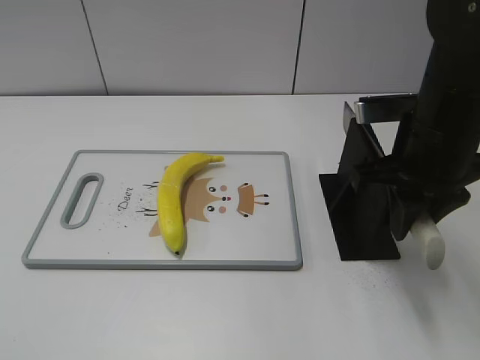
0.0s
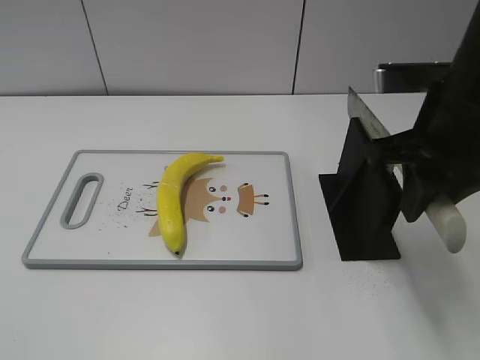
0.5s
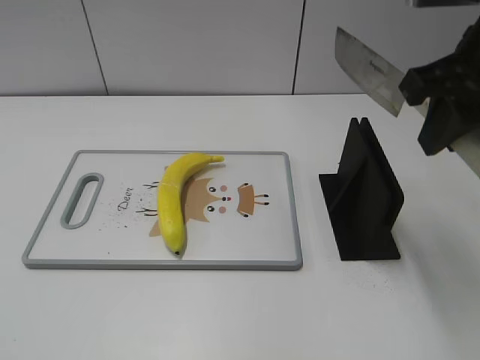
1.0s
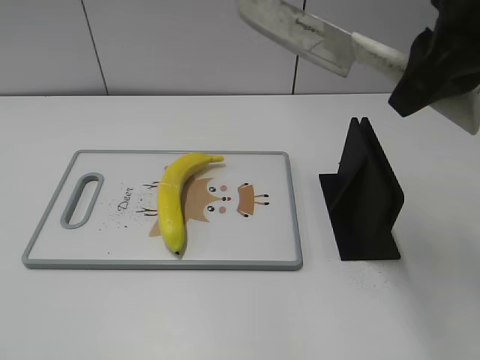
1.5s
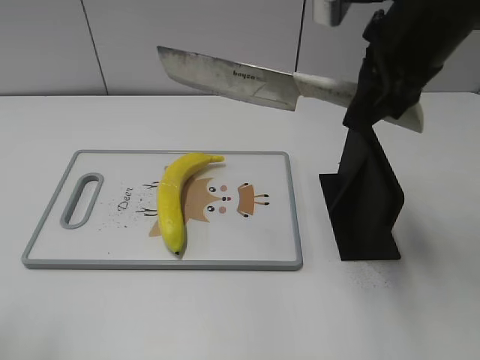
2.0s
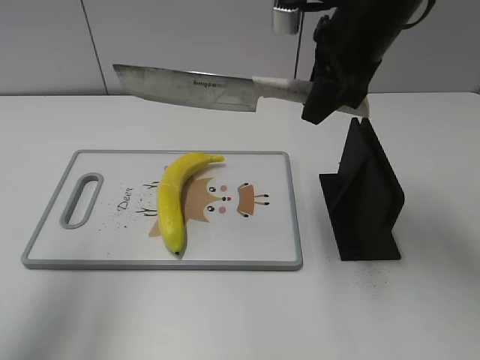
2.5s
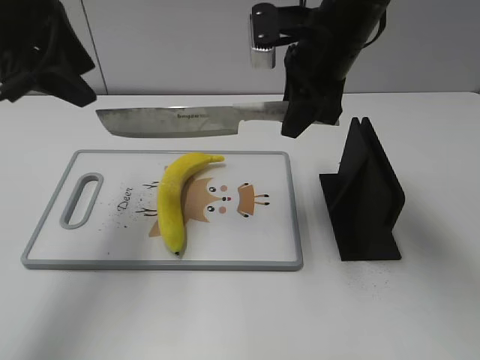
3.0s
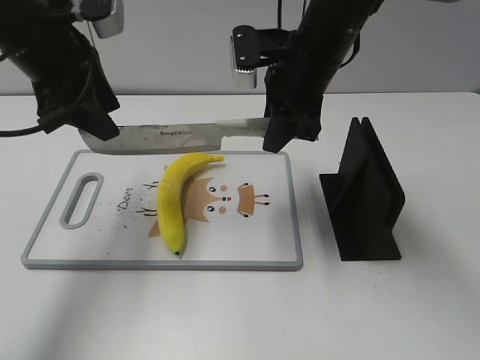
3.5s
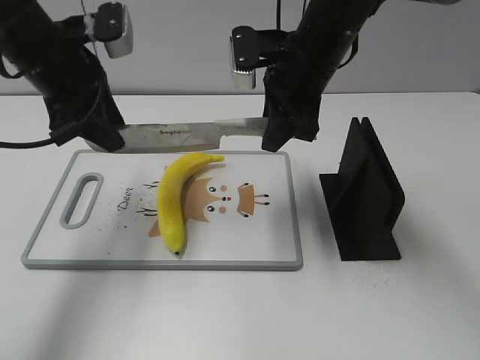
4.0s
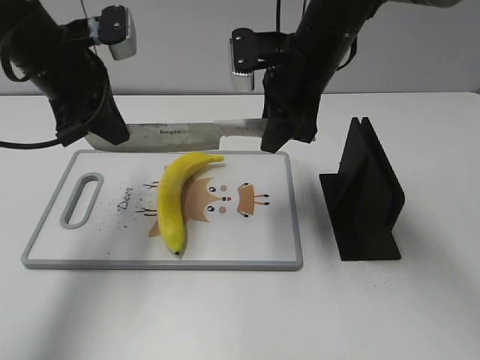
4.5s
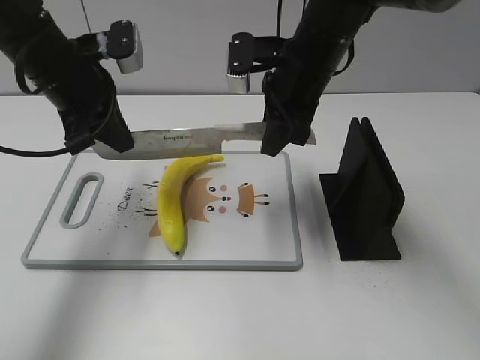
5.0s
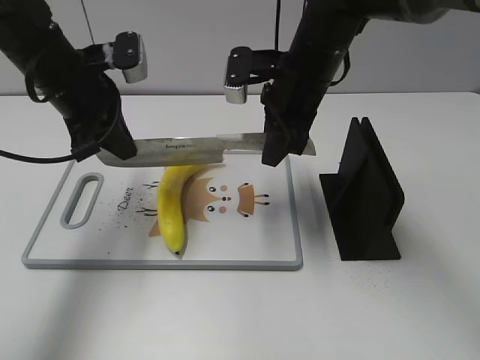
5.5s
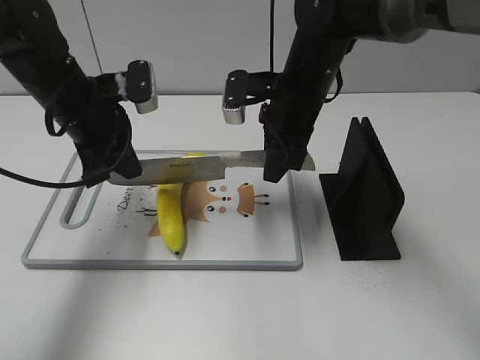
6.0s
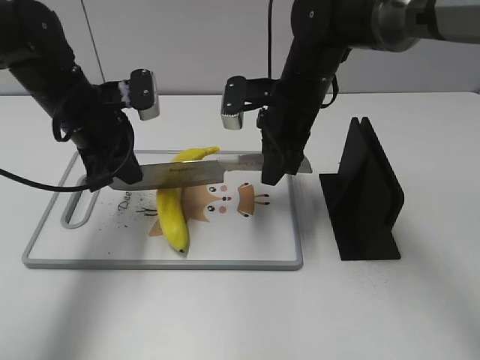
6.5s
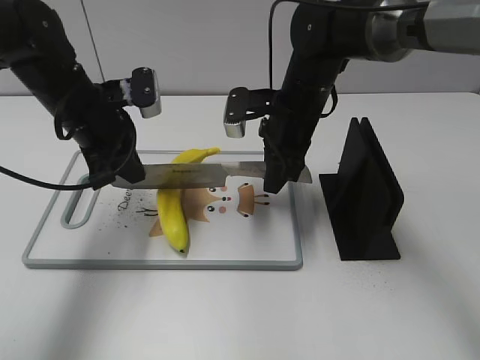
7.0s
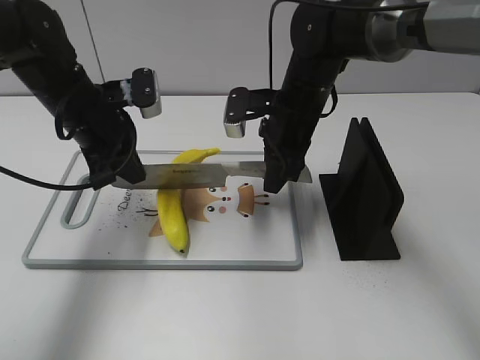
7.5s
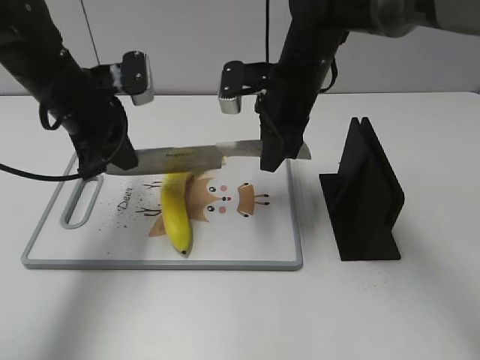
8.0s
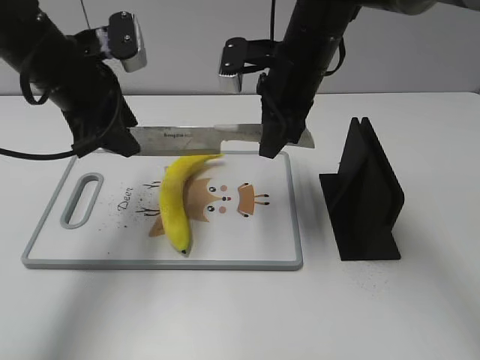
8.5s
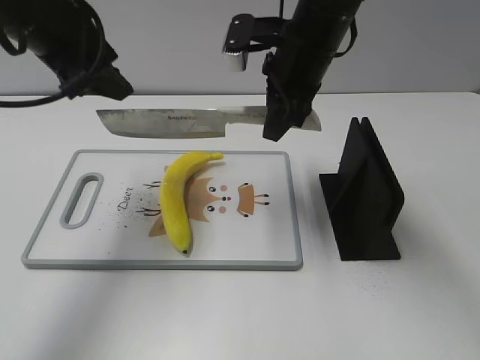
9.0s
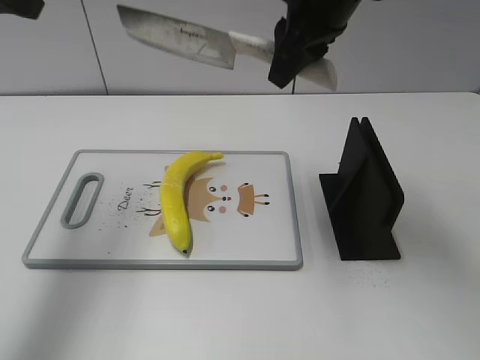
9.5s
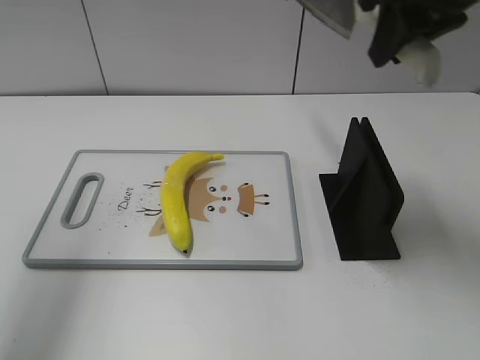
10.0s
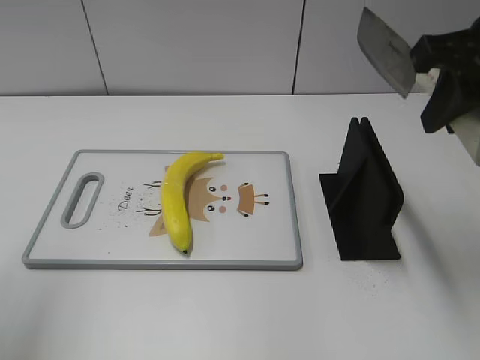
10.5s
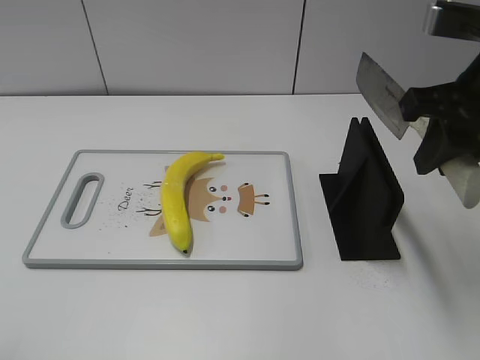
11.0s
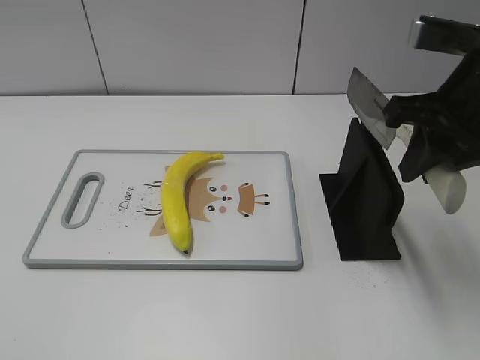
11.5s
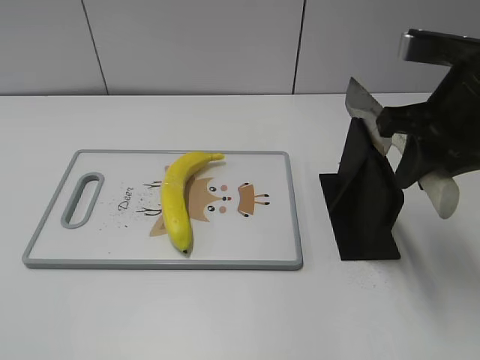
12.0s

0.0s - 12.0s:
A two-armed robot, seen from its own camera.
Task of the whole recording: cut plastic banana.
Step, 2.0s - 7.0s: Lift the knife with your right hand.
Step, 7.5s - 10.0s: Cut the banana with your right hand.
Step, 10.5s - 11.5s: Lift the knife with your right hand.
0.0s - 2.0s: The left gripper goes some 10 cm forward and upward. Meanwhile the right gripper is displaced upward by approximately 10 cm.
2.0s - 4.0s: The left gripper travels forward by some 25 cm. Meanwhile the right gripper moves downward, forward and to the left, roughly 15 cm.
4.0s - 6.0s: The left gripper shifts about 5 cm downward, and closes its fingers, while the right gripper moves some 5 cm.
6.0s - 8.0s: The grippers stay close to where they were, moving slightly.
8.0s - 10.0s: The left gripper shifts some 25 cm upward, to the left and backward, and opens. The right gripper goes approximately 20 cm upward, to the right and backward.
10.0s - 12.0s: The right gripper heads downward and backward, covering some 10 cm; the left gripper is displaced backward and downward by some 30 cm.

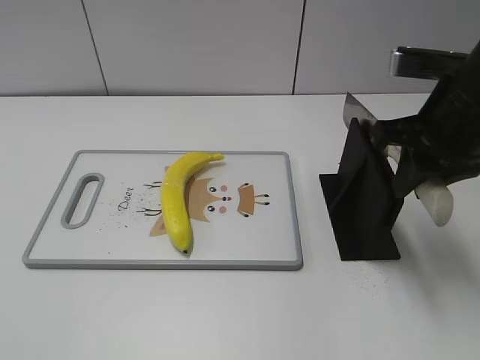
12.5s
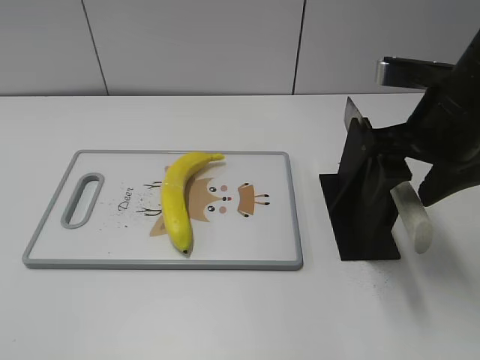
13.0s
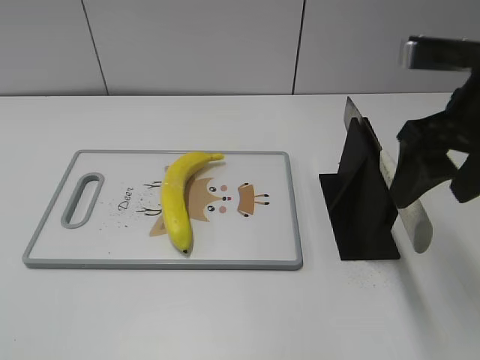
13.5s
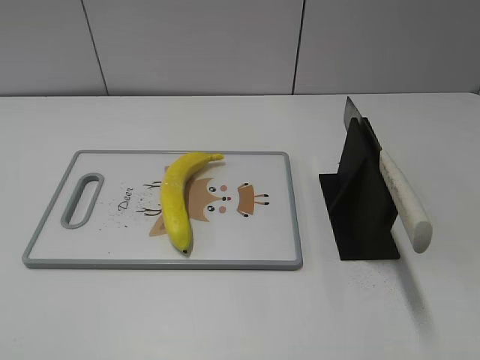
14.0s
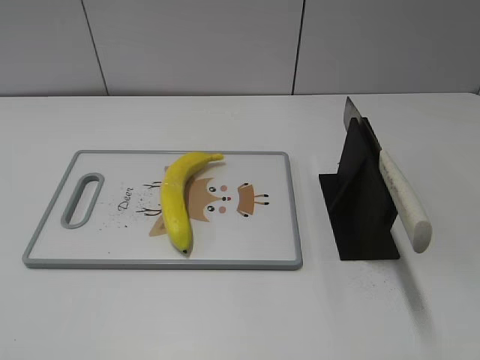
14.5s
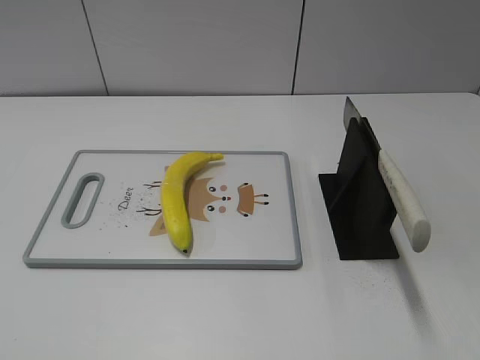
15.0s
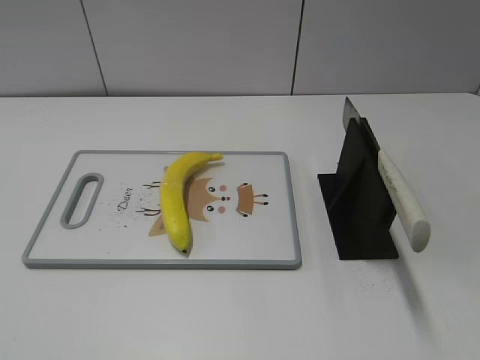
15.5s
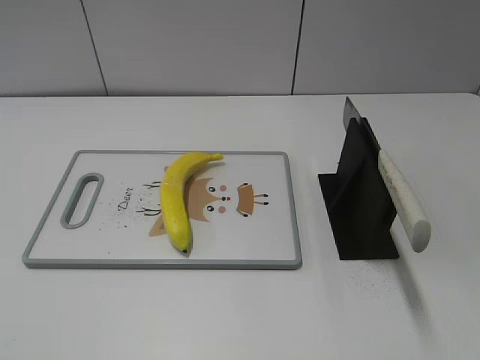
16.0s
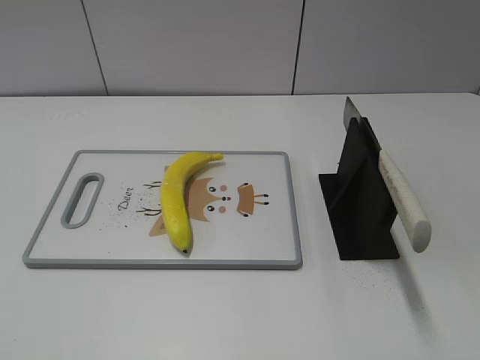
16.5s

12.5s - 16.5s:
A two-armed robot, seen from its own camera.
Task of the whole recording: cut plastic banana.
Step, 12.5s - 16.5s: Place the knife on the storage rack with your right hand.
12.5s - 14.5s: The right gripper moves backward, about 25 cm, and opens.
